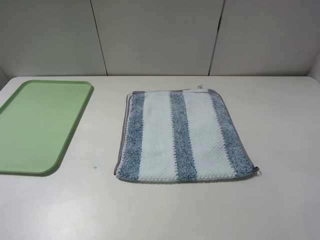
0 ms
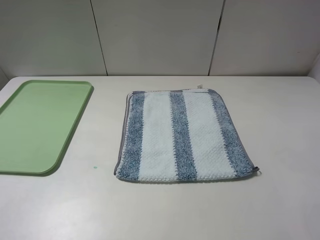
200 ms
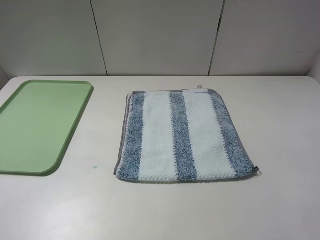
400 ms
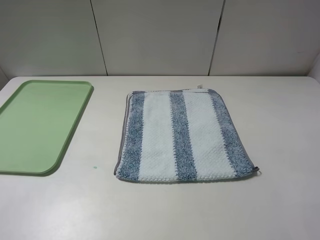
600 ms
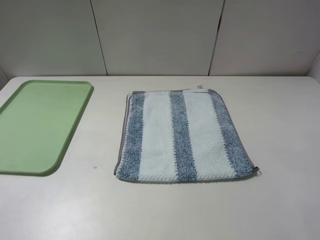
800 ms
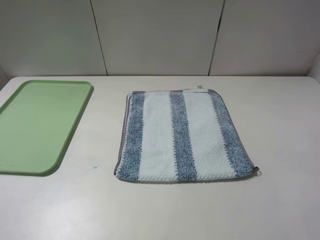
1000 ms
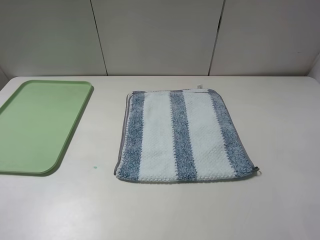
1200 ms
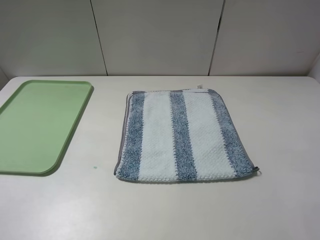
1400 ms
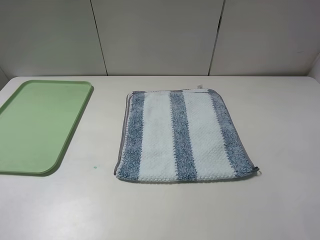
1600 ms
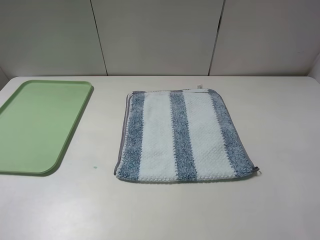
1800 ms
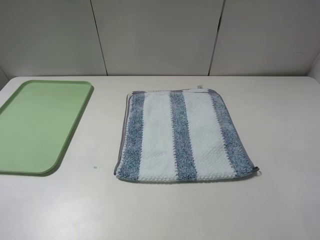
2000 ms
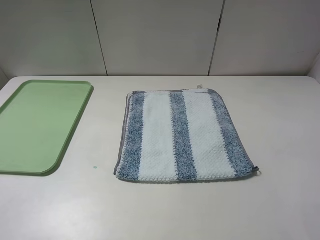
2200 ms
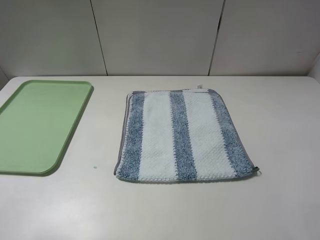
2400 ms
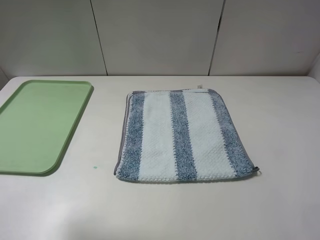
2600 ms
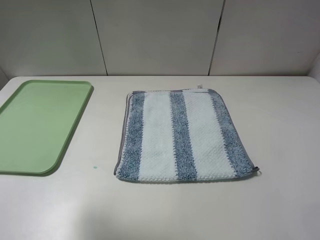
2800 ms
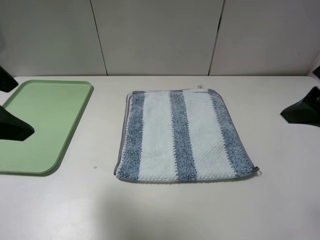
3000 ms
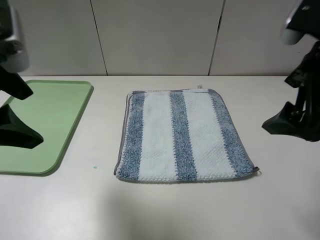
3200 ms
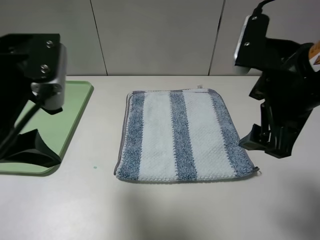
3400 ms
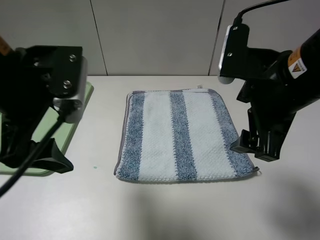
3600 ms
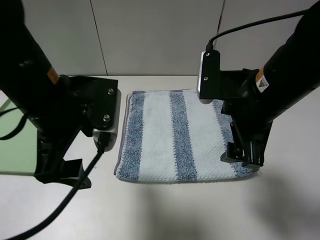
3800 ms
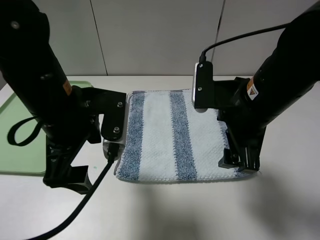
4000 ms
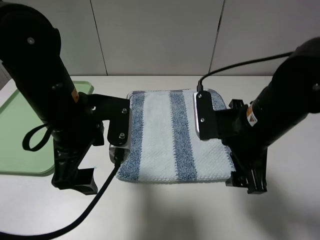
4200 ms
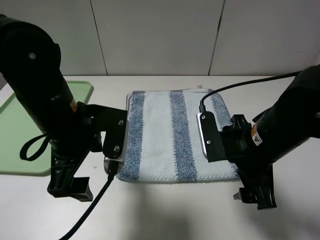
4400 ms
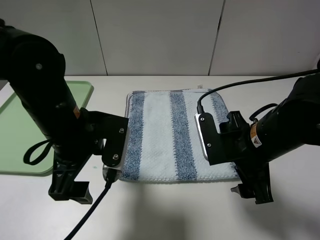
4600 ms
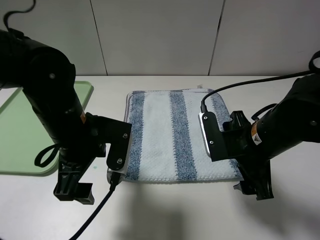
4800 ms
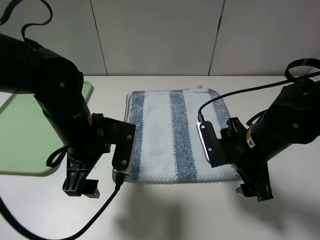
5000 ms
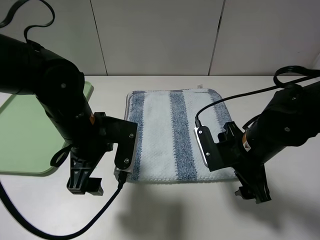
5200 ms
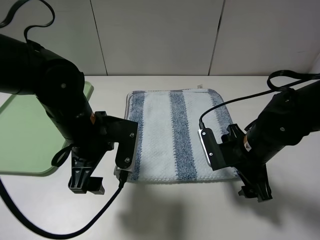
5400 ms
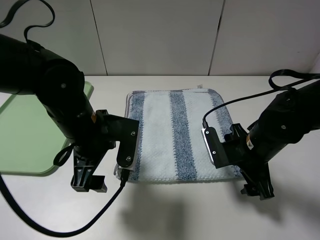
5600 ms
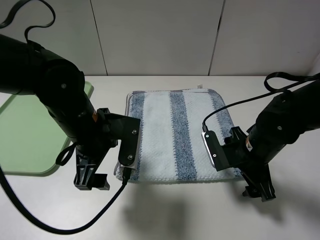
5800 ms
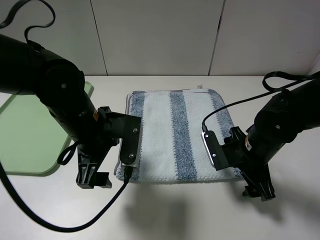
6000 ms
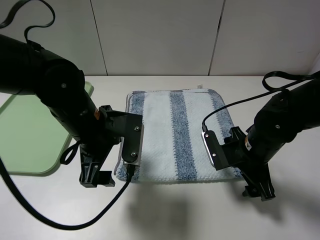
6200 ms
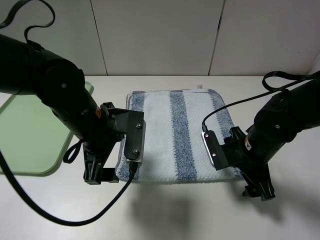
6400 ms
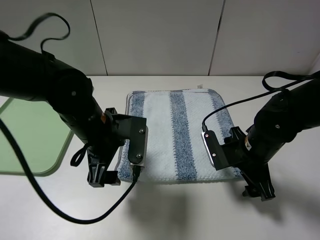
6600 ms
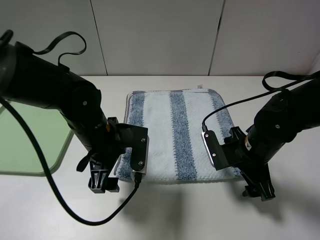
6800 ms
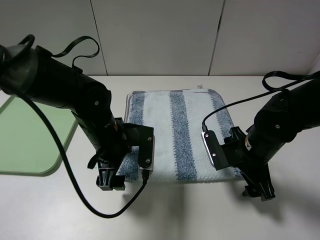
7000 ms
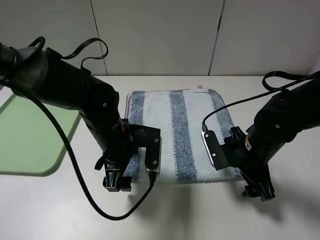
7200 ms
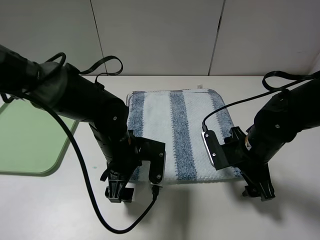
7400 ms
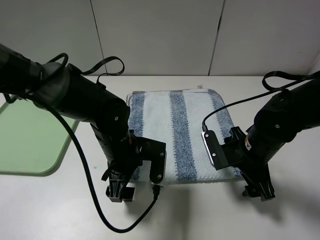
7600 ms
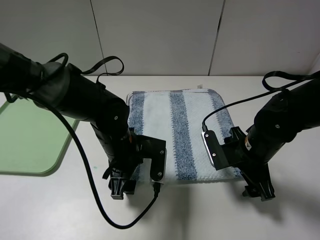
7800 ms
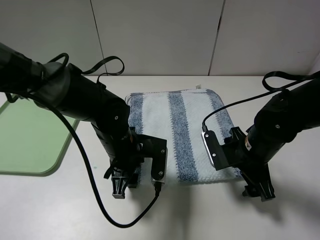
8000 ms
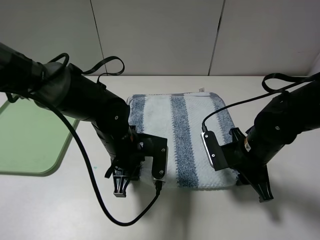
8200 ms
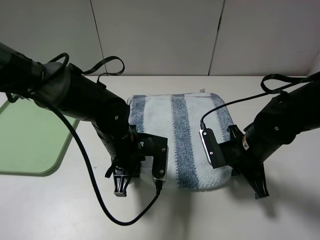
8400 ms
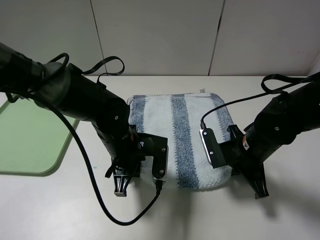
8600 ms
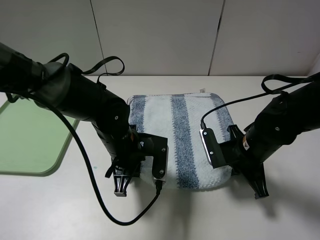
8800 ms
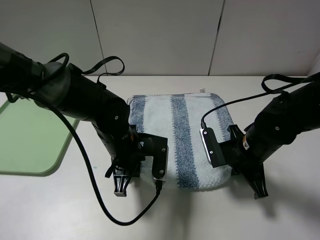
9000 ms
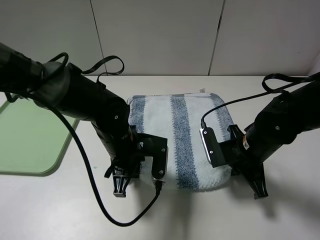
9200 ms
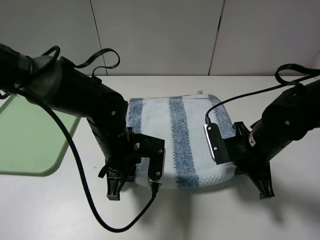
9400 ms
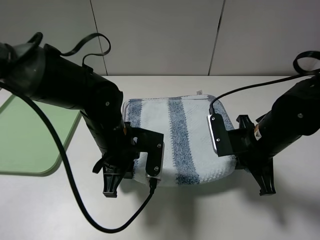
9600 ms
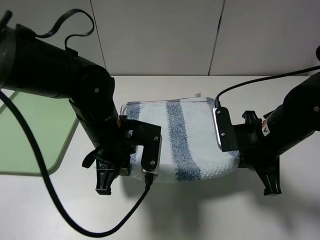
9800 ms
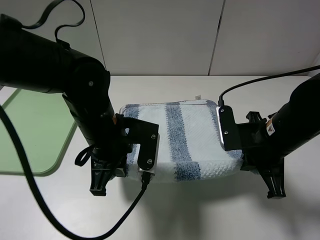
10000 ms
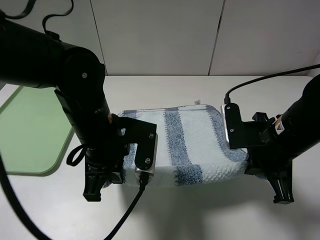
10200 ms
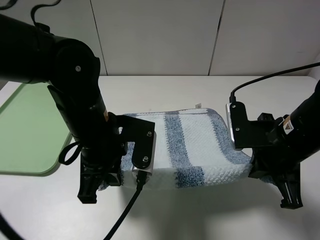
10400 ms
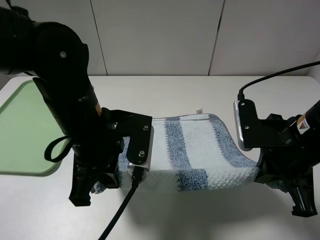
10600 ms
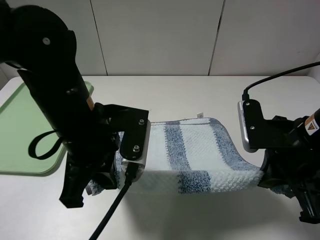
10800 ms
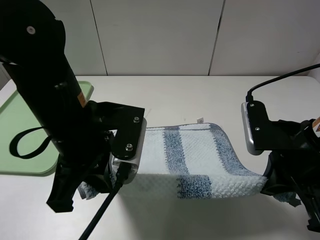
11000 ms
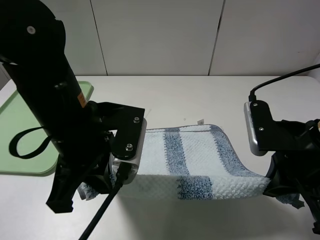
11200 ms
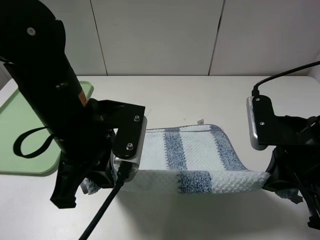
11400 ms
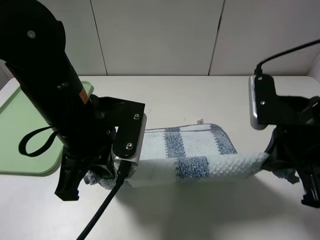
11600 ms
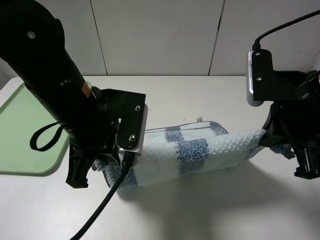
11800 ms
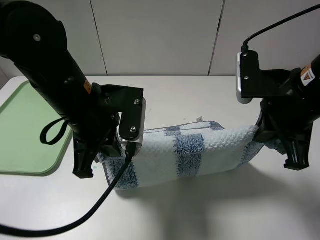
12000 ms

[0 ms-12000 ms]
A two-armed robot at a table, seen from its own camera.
Step, 0 ms to 9400 ms: Grasp the blue white towel with the left gripper.
0 ms to 1600 ms: Both grippers stay about where they are.
1600 ms to 3000 ms: The right gripper heads forward and to the left, covering about 20 cm; the left gripper goes some 20 cm forward and to the right.
3000 ms to 4400 ms: The left gripper shifts some 15 cm downward and to the right. Meanwhile the right gripper moves downward and to the left, some 15 cm.
4400 ms to 6000 ms: The right gripper travels downward by approximately 10 cm.
6000 ms to 7600 ms: The left gripper shifts some 5 cm downward.
7600 ms to 9000 ms: The right gripper closes, while the left gripper closes up.
9000 ms to 10400 ms: The grippers both shift upward by approximately 10 cm.
10400 ms to 12000 ms: The right gripper travels upward by about 5 cm.

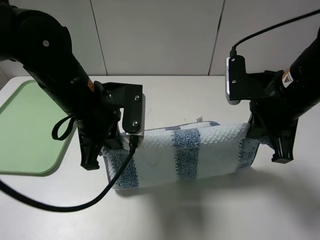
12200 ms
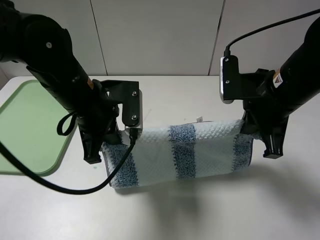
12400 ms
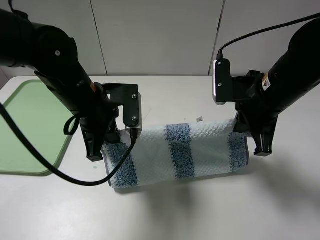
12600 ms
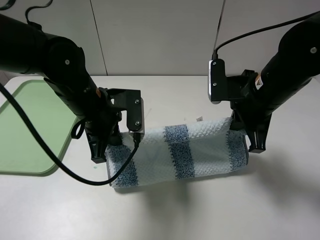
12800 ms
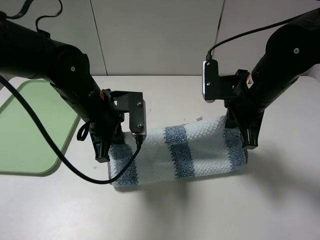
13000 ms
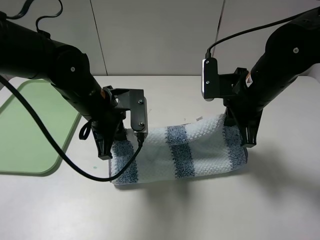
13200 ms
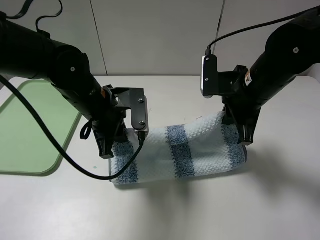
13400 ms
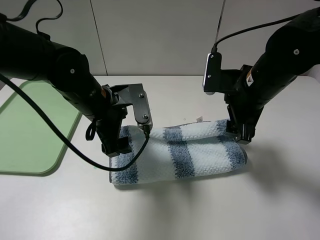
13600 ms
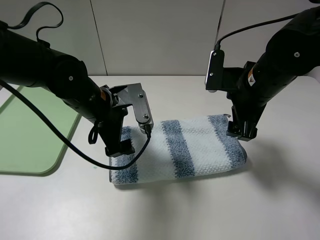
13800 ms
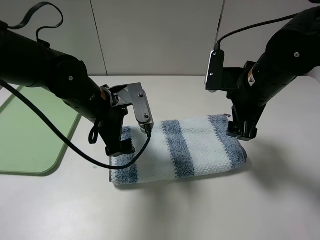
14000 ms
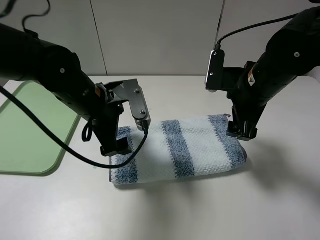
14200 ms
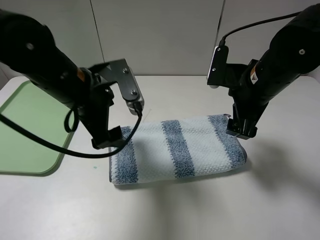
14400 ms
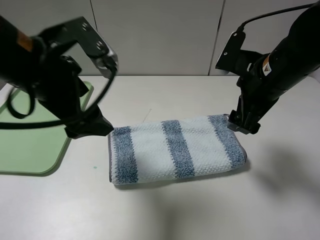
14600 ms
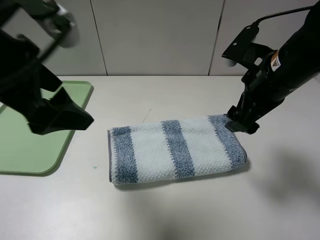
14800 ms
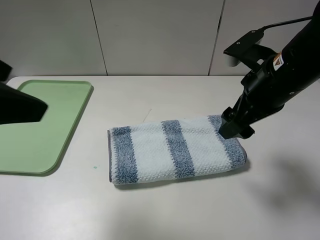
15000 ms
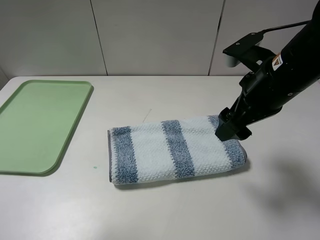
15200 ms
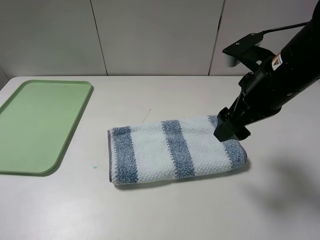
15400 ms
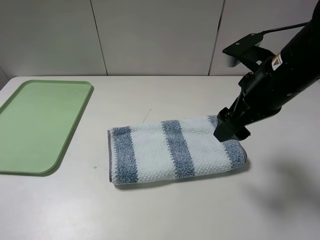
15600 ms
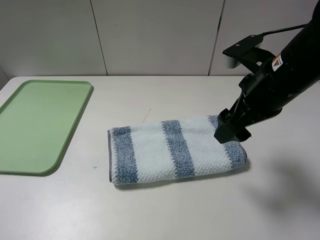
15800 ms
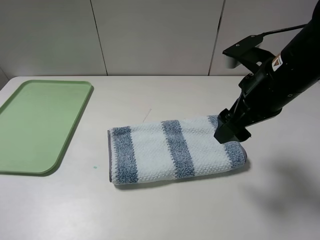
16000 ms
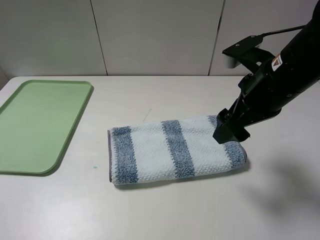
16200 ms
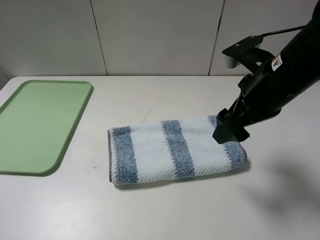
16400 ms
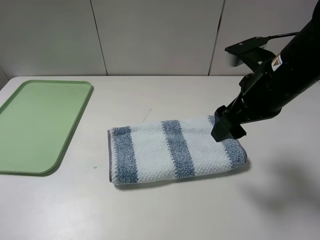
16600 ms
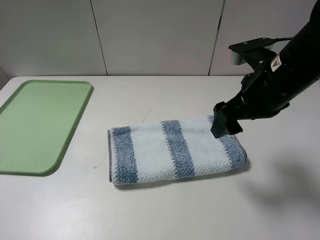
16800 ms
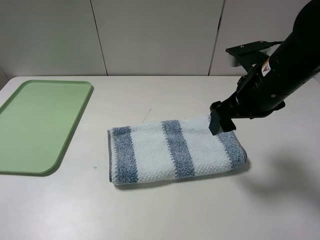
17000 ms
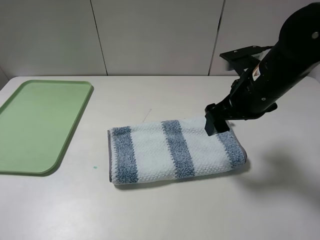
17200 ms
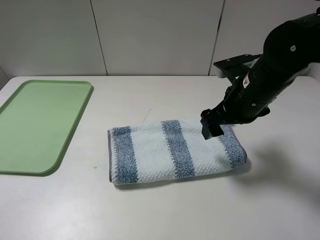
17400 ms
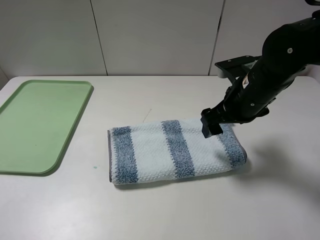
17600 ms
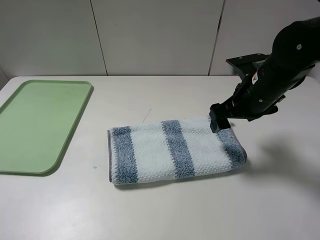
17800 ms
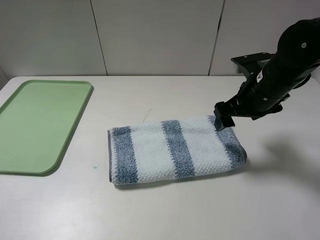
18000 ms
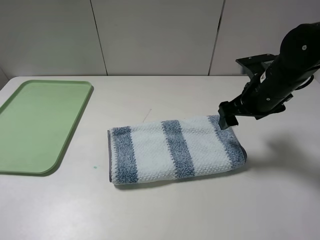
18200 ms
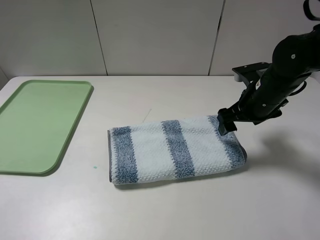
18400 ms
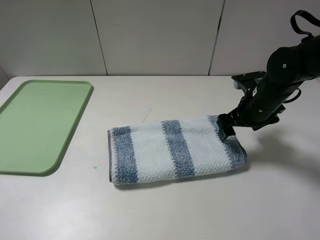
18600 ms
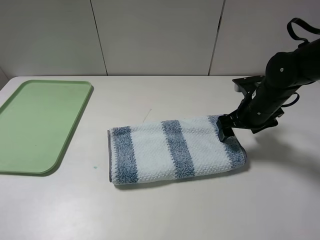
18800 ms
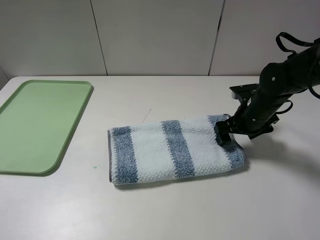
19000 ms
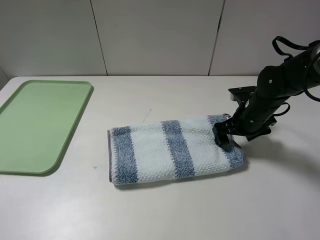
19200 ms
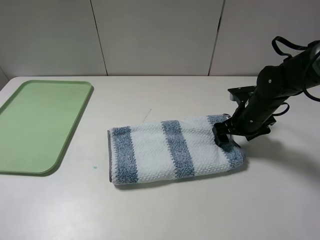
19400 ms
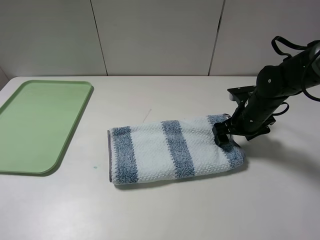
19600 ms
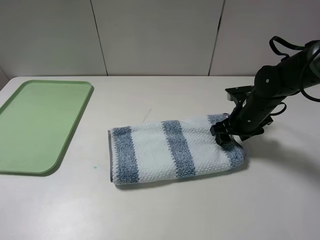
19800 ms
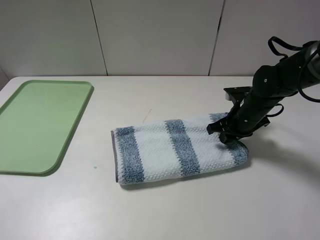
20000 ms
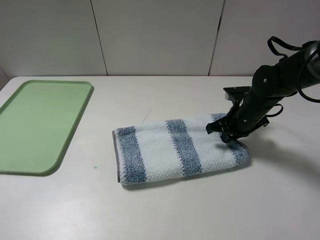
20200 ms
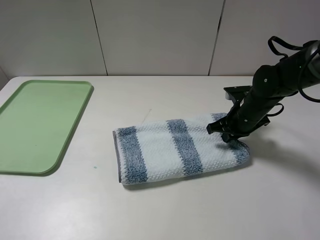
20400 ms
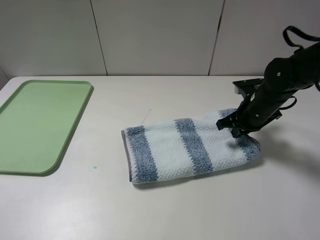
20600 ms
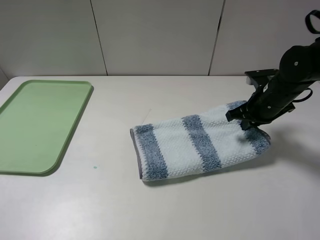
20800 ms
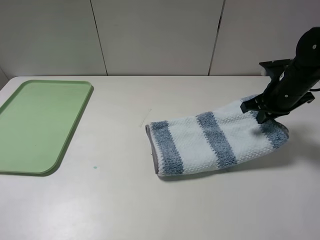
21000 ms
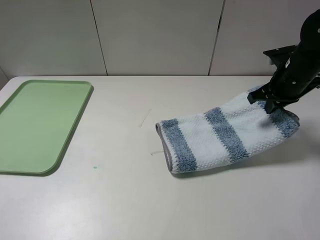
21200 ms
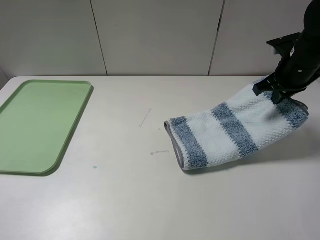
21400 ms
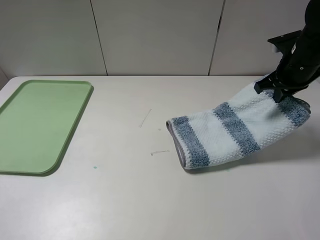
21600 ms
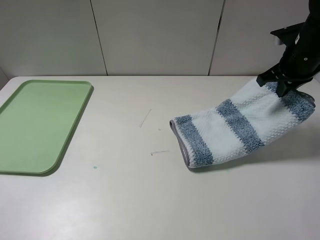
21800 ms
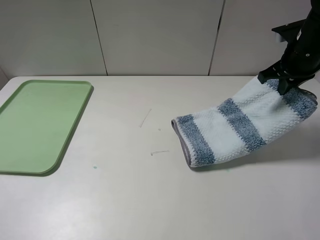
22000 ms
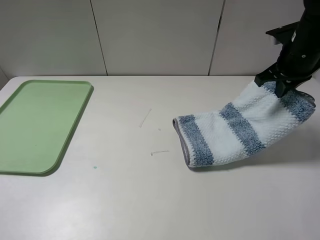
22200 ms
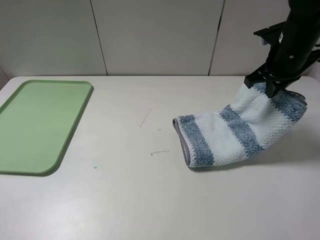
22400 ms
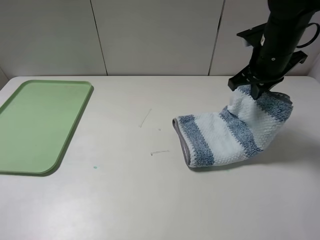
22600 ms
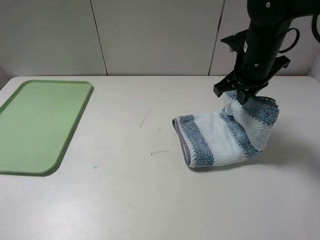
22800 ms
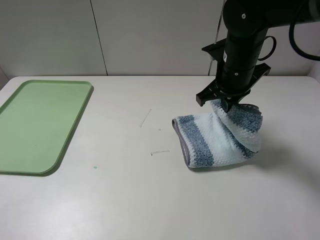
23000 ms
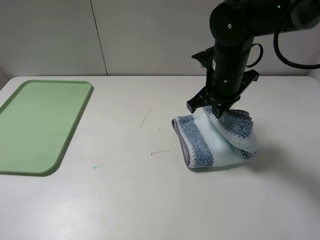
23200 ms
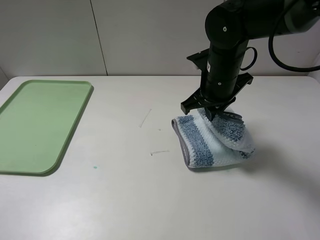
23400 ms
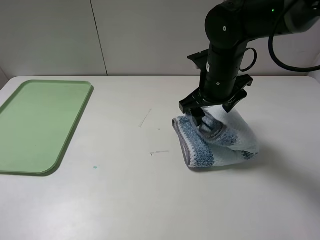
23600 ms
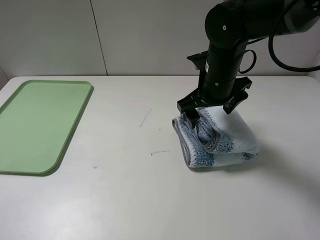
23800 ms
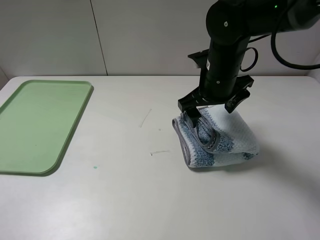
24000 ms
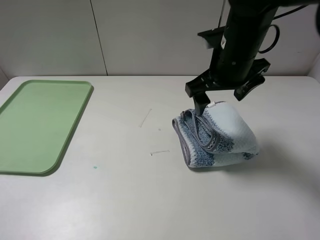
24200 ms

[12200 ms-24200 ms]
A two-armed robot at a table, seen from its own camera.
Step, 12200 ms to 14600 ms: Fold the blue white towel upwards with the left gripper.
Step, 14800 ms to 20400 ms: Grasp the blue white towel with the right gripper.
12200 ms to 13800 ms: The left gripper shifts by roughly 5 cm, and opens; the right gripper ends up about 5 cm from where it was, and opens.
13800 ms to 15200 ms: The left gripper heads upward, backward and to the left, covering roughly 35 cm, while the right gripper moves roughly 5 cm.
16600 ms to 18200 ms: The right gripper heads downward and forward, covering approximately 10 cm.
18200 ms to 19800 ms: The right gripper is displaced downward by roughly 10 cm, and closes up.
19800 ms to 21200 ms: The right gripper goes approximately 10 cm upward and to the right, and closes.
21200 ms to 22600 ms: The right gripper moves to the left, about 10 cm.
22600 ms to 24200 ms: The right gripper heads to the left and backward, covering about 10 cm, and opens its fingers.
